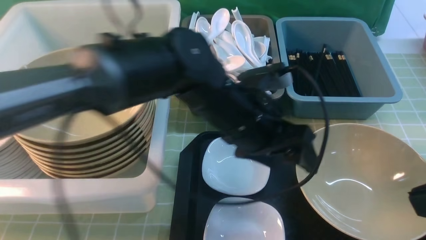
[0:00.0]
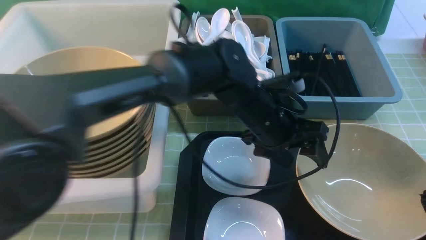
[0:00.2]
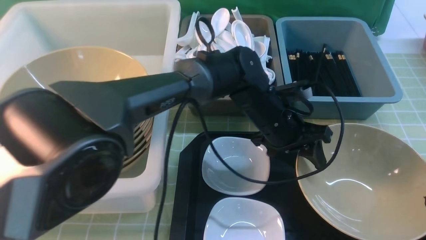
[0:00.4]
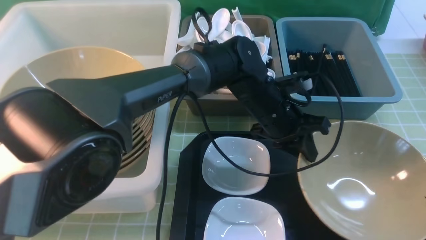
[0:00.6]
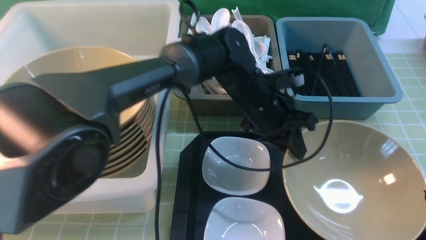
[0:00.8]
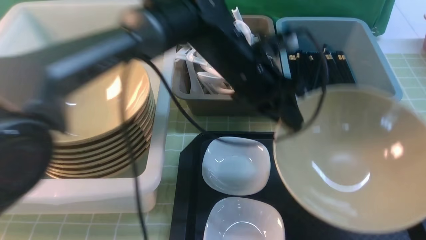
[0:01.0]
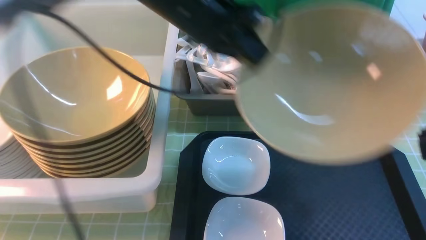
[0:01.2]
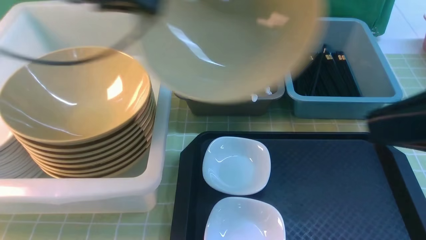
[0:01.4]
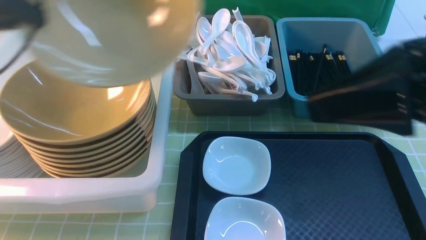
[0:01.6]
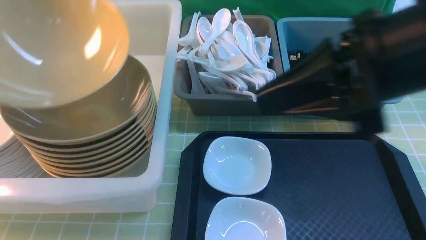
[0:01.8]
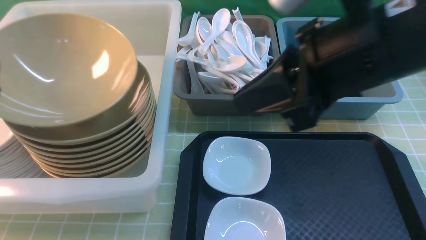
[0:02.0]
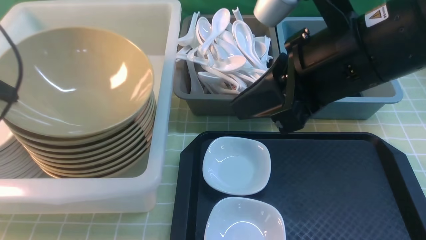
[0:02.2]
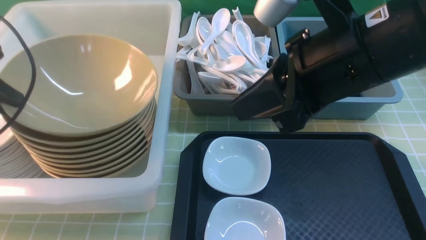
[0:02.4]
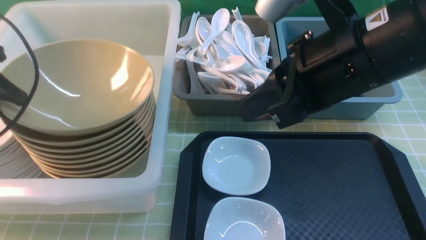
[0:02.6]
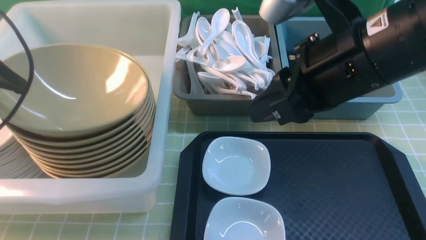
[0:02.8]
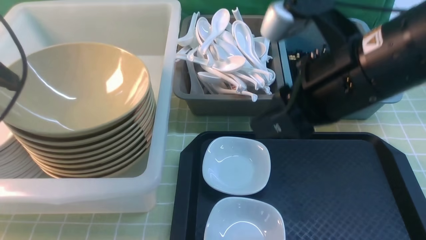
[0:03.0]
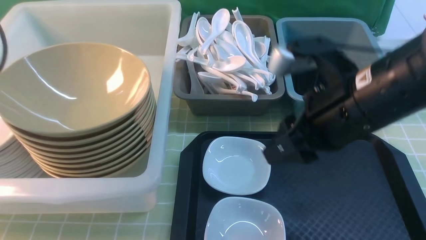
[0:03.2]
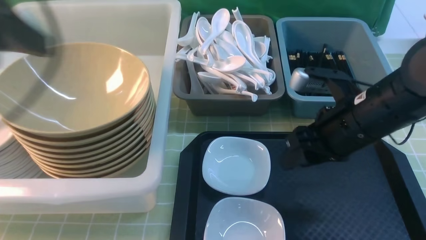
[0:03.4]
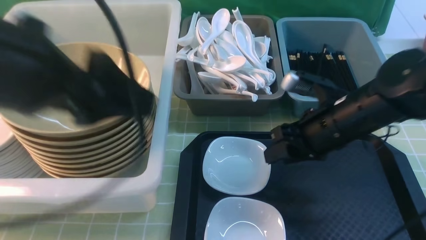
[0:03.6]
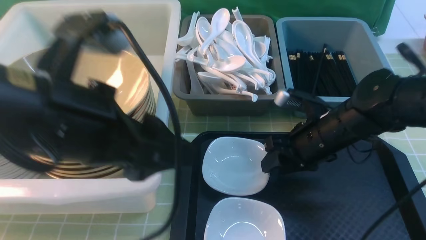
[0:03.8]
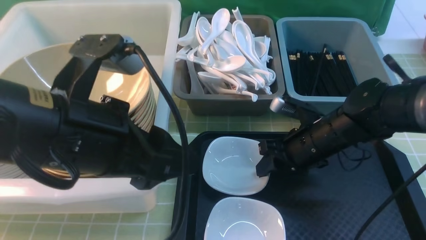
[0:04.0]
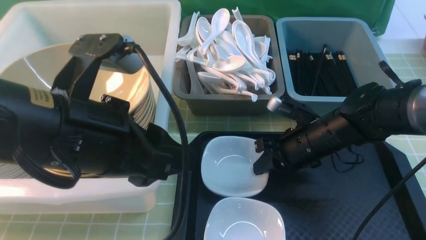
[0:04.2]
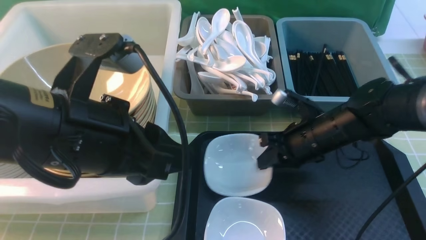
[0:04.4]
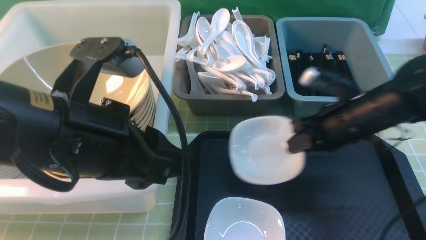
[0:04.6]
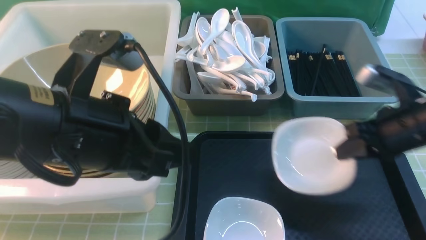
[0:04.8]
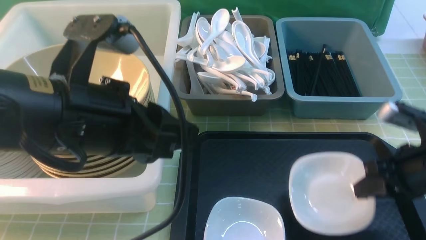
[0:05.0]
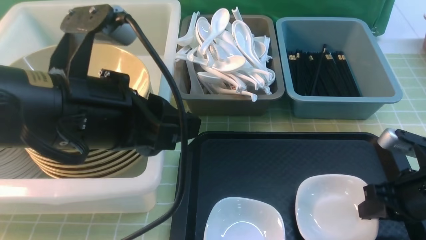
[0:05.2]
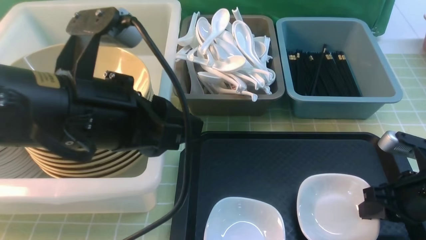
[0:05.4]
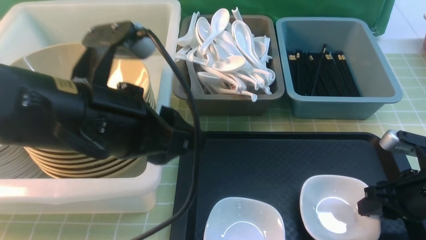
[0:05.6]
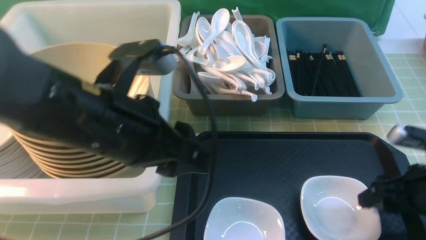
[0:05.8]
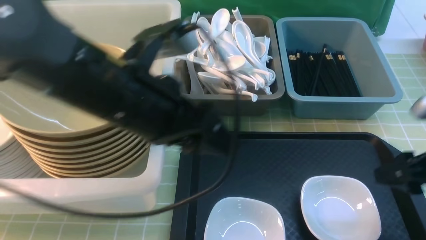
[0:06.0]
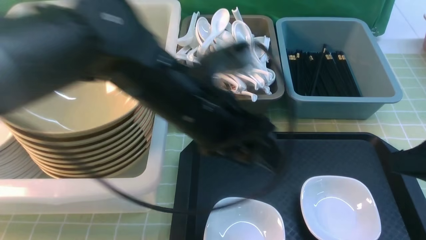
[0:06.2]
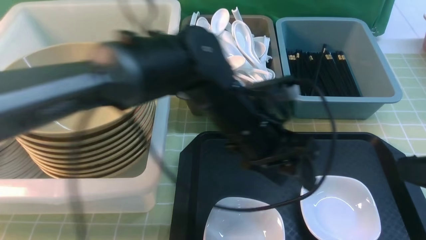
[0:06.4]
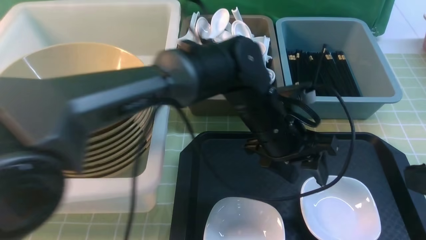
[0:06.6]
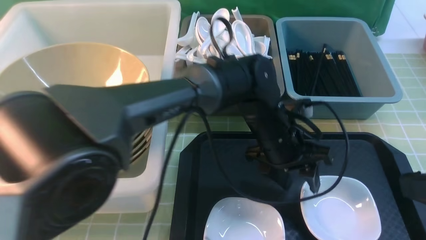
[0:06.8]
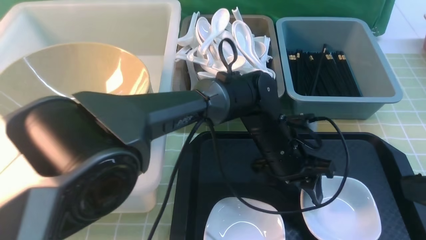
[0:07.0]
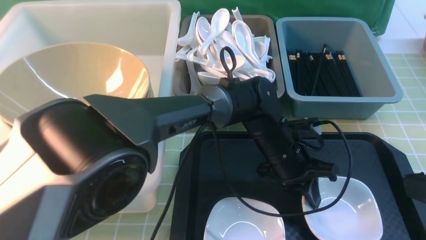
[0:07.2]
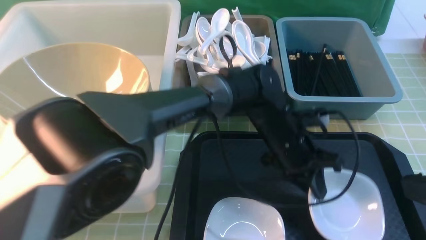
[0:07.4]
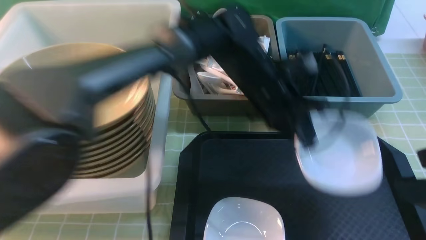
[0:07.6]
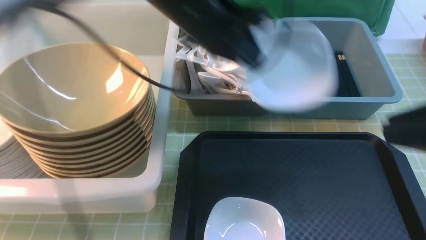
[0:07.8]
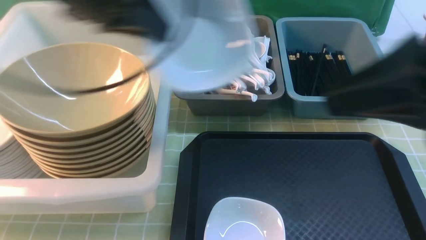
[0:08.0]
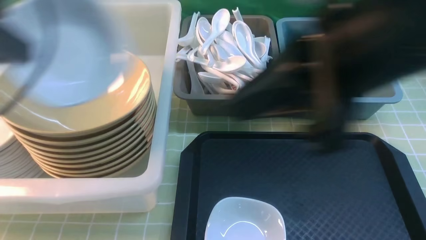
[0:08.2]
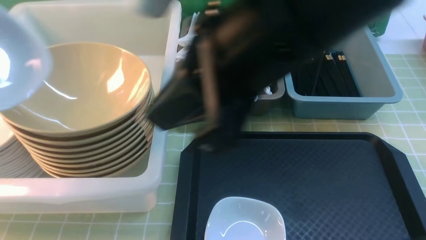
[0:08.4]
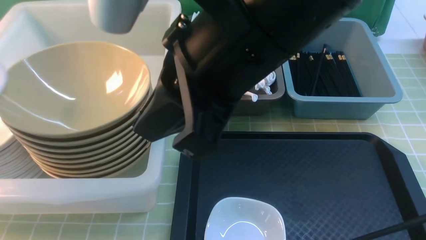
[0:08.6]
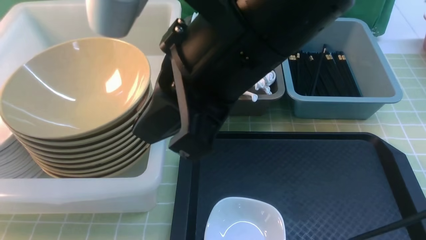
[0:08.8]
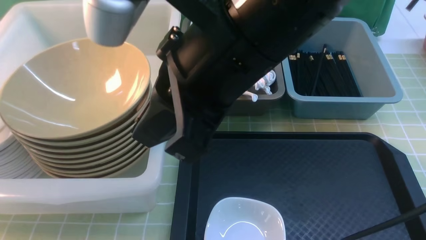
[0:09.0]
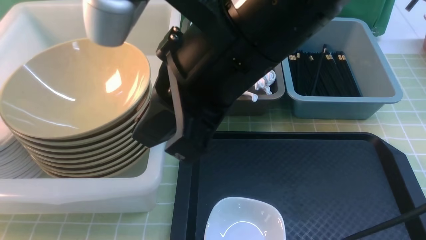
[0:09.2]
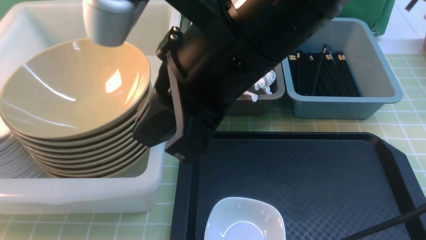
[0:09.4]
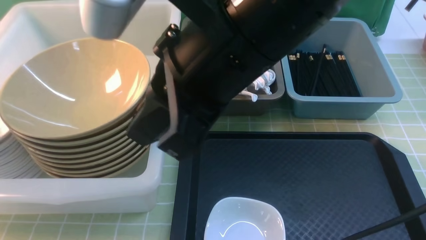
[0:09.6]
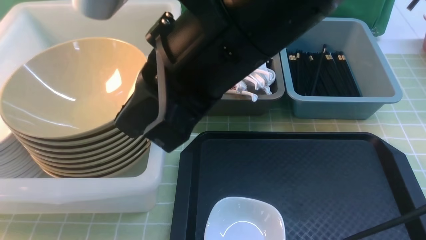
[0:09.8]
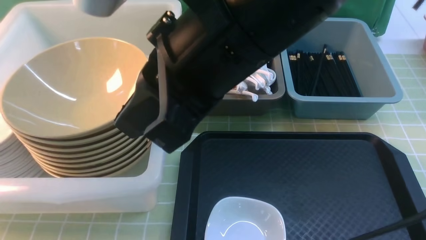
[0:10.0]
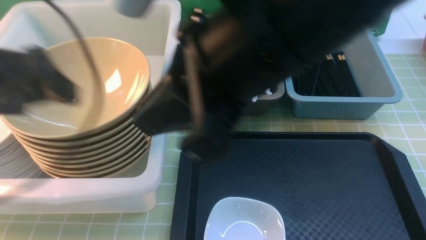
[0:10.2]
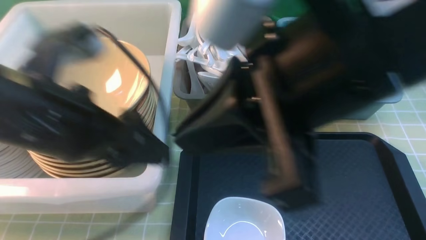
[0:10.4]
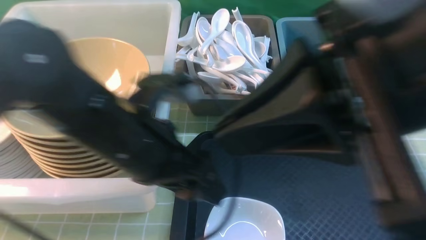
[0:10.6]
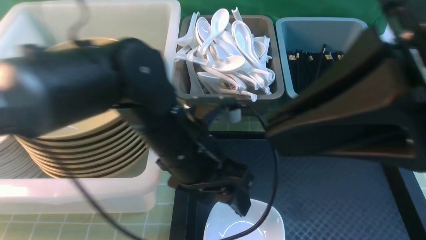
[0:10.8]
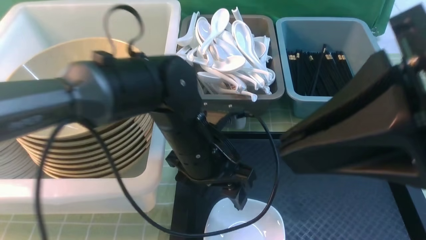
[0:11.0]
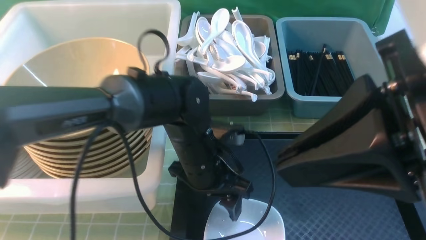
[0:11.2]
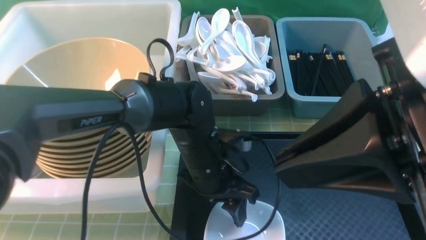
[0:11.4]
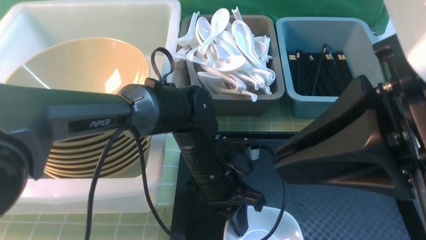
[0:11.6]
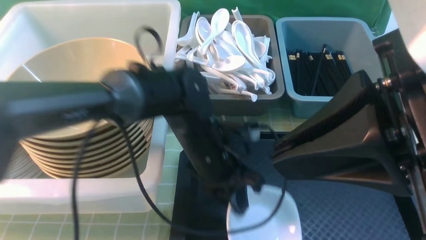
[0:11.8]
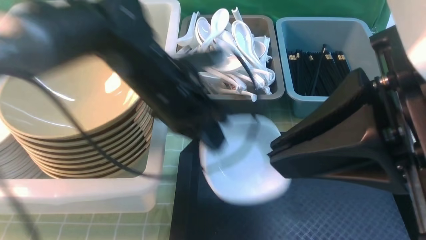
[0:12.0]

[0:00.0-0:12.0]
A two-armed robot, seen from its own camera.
Task of the whole recording: on green table put chopsticks spoon bowls plates into blue grey white boxes.
Step, 0:01.2 to 0:03.0: use the left arm to put the noodle bowl into the large storage box on the left.
Step, 0:03.2 to 0:04.4: use the right arm to grab the plate.
Step, 0:04.6 to 0:05.4: use the right arm to put the plate on the tray.
Step, 0:05.6 to 0:07.4: use the left arm to grab the plate.
Step, 0:07.6 to 0:09.6: use the left arm to put the plate into the large storage box on the left.
Step, 0:10.0 to 0:11.8: use the left arm to grab the plate.
0:00.0 to 0:01.6: The right gripper shifts about 10 cm forward and to the left. The left gripper moves to the left, approximately 35 cm, and closes.
0:01.6 to 0:03.0: The left gripper moves backward, approximately 5 cm, and opens its fingers; the right gripper travels downward, forward and to the left by roughly 10 cm, and opens its fingers.
0:03.0 to 0:04.4: The right gripper goes approximately 20 cm downward and forward, and closes up. The left gripper heads to the right, covering about 20 cm, and closes its fingers.
0:04.4 to 0:06.0: The right gripper travels backward, to the right and upward by about 20 cm, and opens its fingers. The left gripper heads to the right and forward, covering approximately 10 cm.
0:06.0 to 0:07.6: The right gripper goes some 15 cm upward and backward. The left gripper goes roughly 15 cm forward and to the right, and closes up.
0:07.6 to 0:09.0: The right gripper travels to the left by approximately 25 cm, and closes. The left gripper is displaced to the left by approximately 40 cm.
0:09.0 to 0:10.4: The right gripper travels to the right and backward by roughly 10 cm. The left gripper goes some 25 cm to the right, and opens.
0:10.4 to 0:12.0: The right gripper ends up about 5 cm from where it was, while the left gripper goes approximately 10 cm forward, moves approximately 20 cm downward and comes back, and closes up.

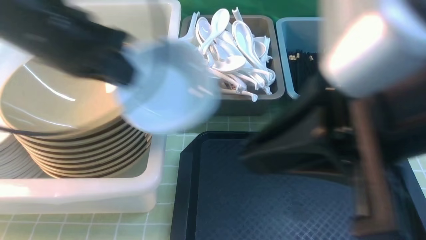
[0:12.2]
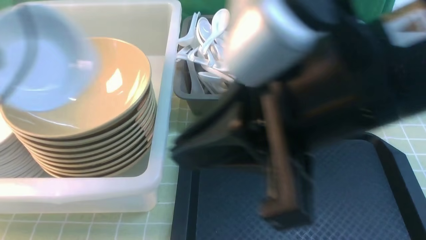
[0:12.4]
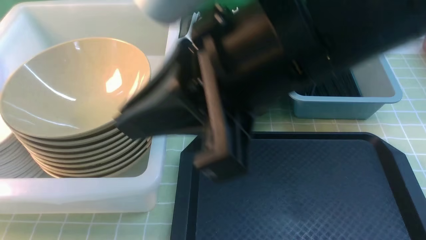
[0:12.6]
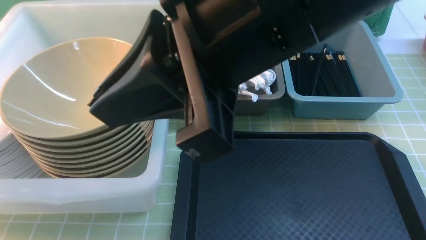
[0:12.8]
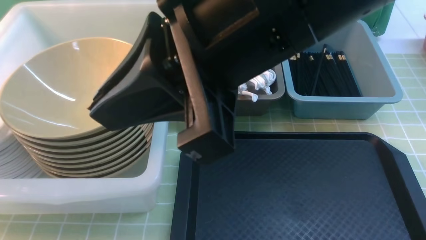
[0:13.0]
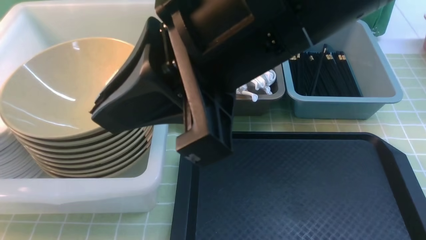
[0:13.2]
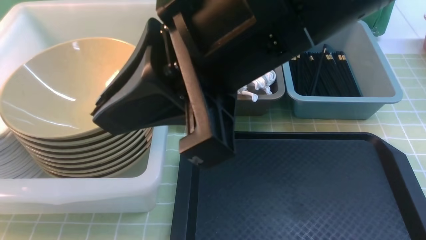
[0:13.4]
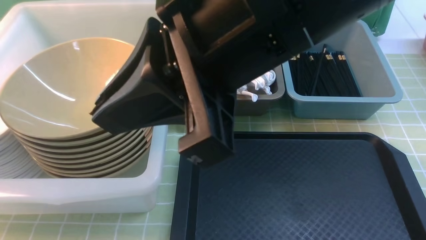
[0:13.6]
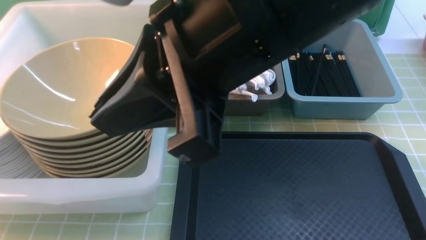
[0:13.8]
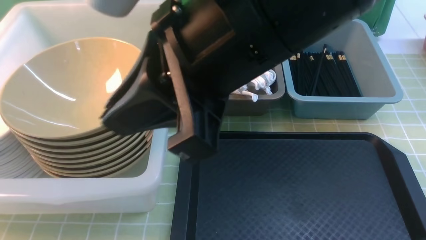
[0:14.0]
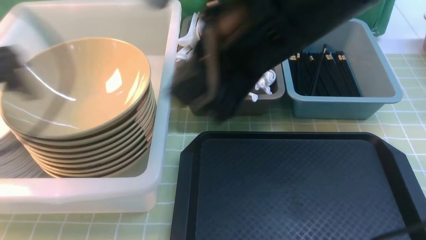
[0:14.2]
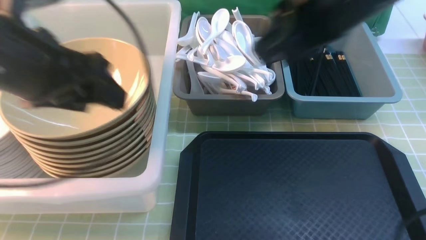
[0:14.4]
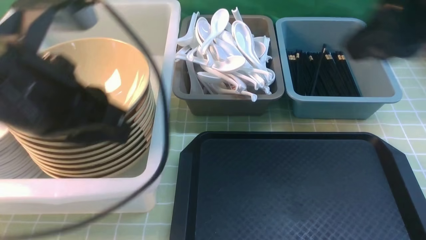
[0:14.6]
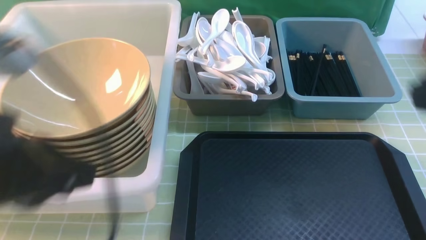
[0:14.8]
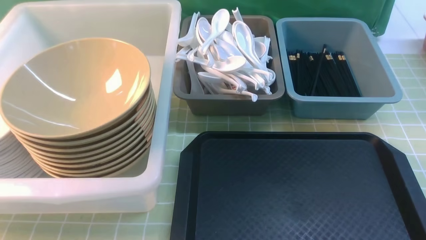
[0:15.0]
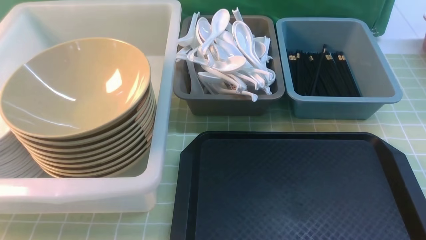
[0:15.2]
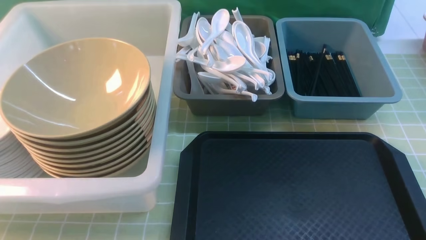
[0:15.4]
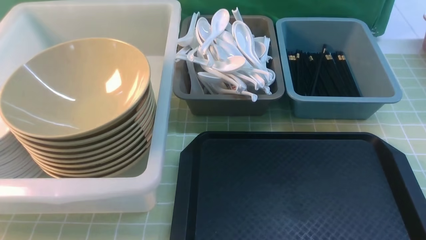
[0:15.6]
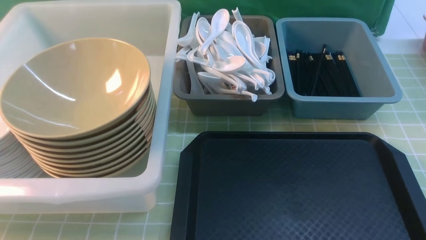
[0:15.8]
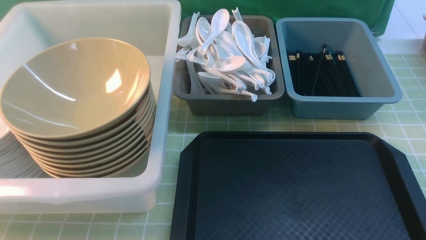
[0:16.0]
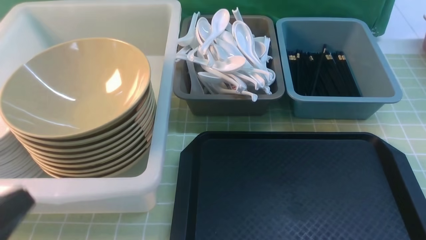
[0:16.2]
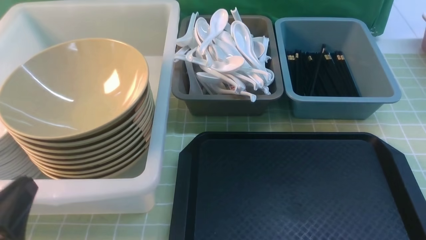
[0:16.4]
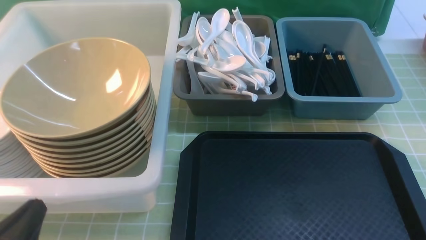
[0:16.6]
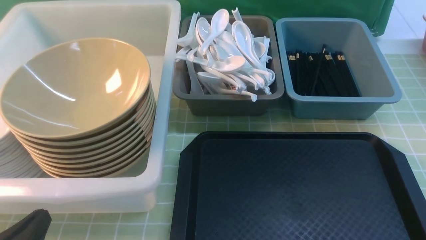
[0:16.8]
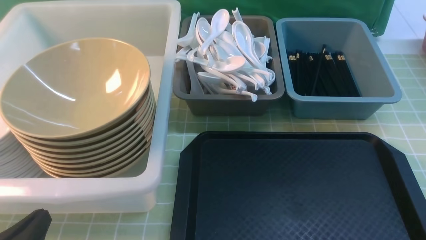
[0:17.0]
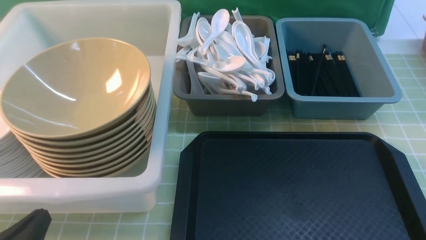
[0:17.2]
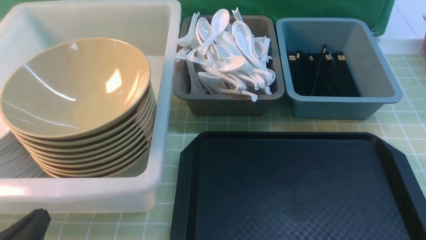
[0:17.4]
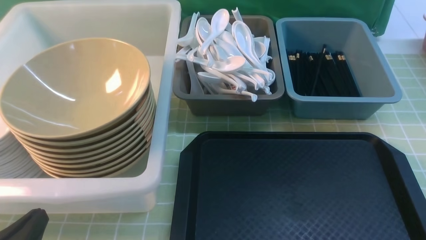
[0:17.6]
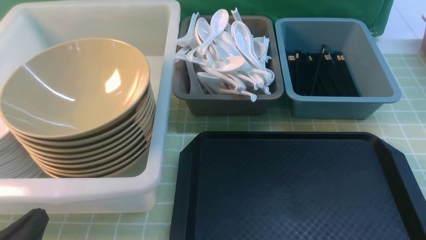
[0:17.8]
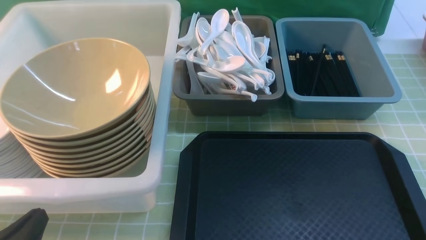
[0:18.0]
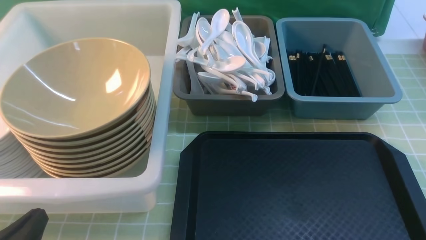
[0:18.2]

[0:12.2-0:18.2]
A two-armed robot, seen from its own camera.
Task of the whole recording: on green table put chopsticks spoon bowls plates into blue grey white boxes.
Step, 0:12.2 to 0:14.2: use the left arm to put the plate into the large storage box on the left.
0:12.2 to 0:13.8: The right gripper heads to the left and forward, covering roughly 10 cm. The left gripper moves to the left, some 15 cm, and opens.
0:13.8 to 0:15.2: The left gripper is displaced backward and to the right by roughly 30 cm, and closes; the right gripper is displaced to the right, backward and downward by about 30 cm.
0:15.2 to 0:16.6: The left gripper goes roughly 15 cm downward and forward.
